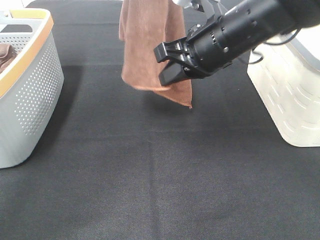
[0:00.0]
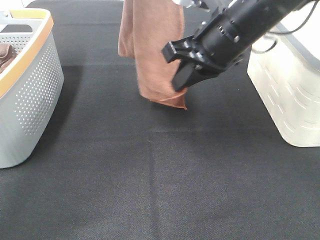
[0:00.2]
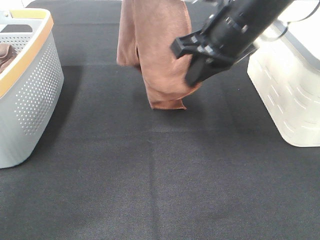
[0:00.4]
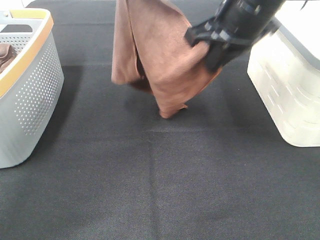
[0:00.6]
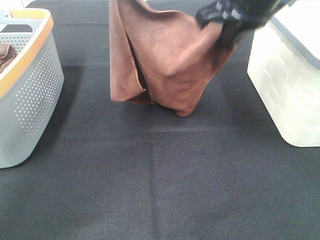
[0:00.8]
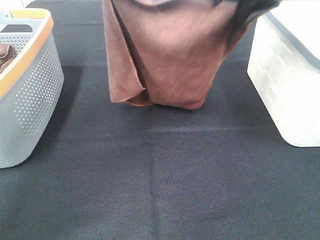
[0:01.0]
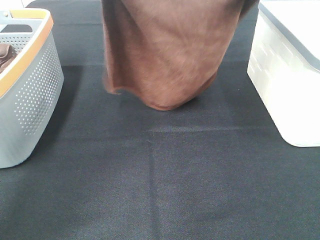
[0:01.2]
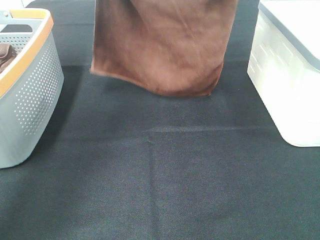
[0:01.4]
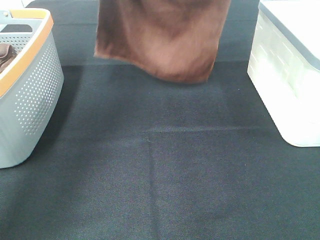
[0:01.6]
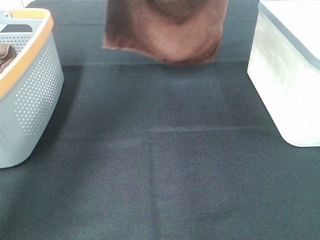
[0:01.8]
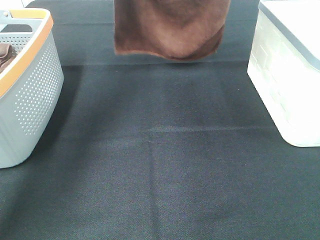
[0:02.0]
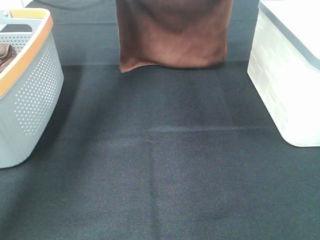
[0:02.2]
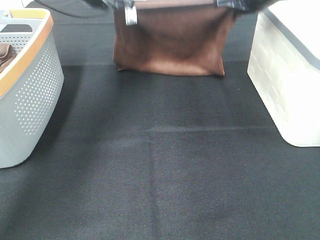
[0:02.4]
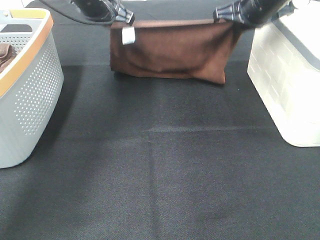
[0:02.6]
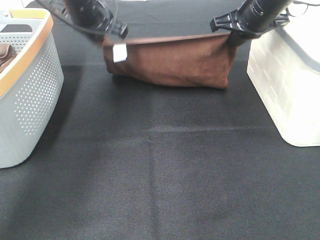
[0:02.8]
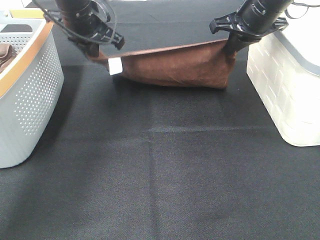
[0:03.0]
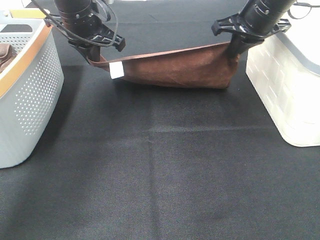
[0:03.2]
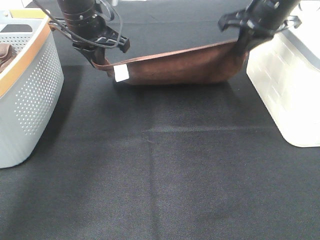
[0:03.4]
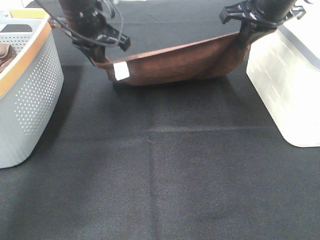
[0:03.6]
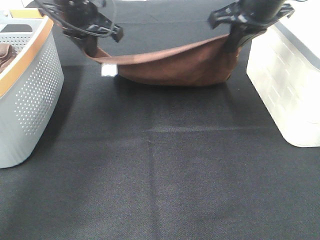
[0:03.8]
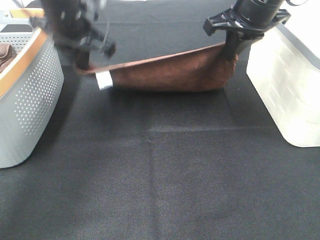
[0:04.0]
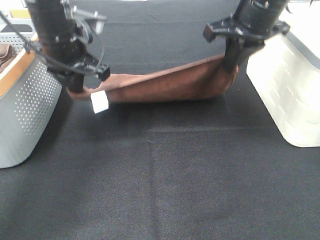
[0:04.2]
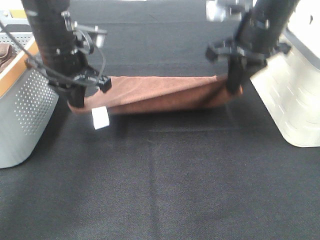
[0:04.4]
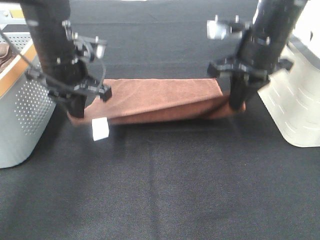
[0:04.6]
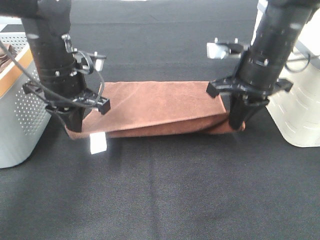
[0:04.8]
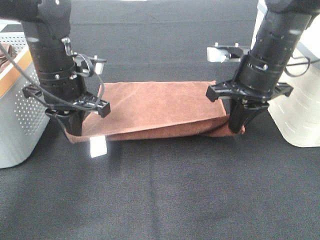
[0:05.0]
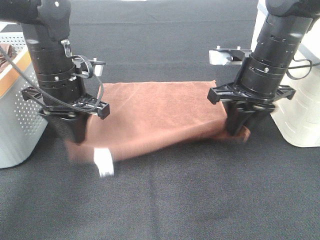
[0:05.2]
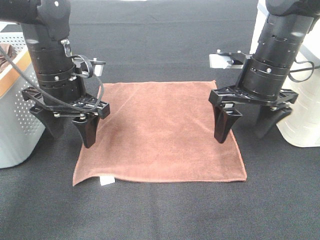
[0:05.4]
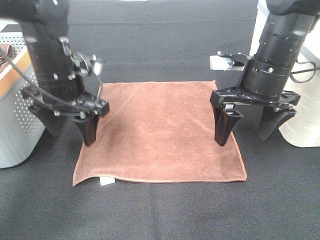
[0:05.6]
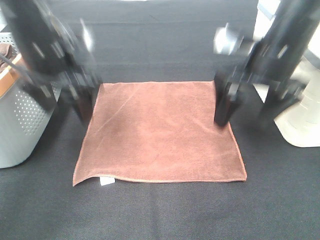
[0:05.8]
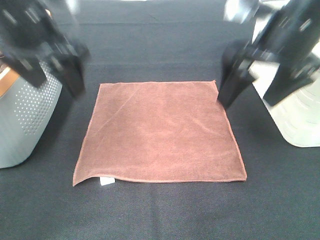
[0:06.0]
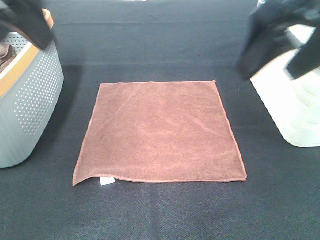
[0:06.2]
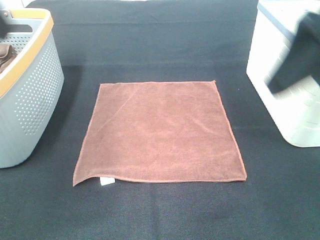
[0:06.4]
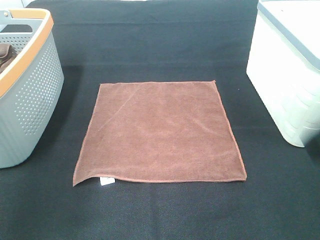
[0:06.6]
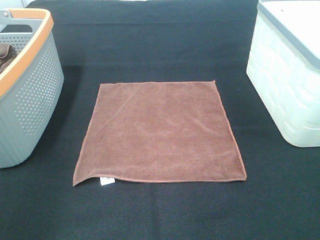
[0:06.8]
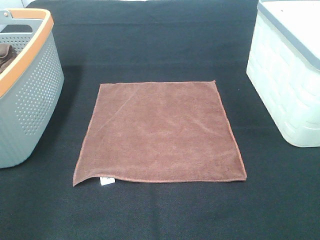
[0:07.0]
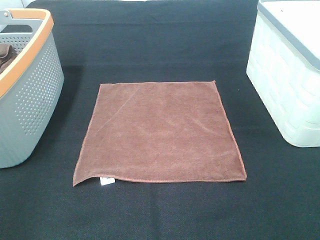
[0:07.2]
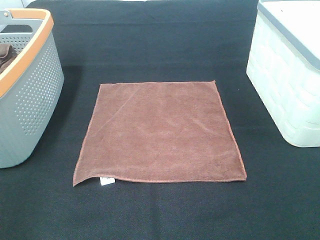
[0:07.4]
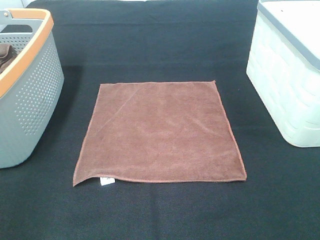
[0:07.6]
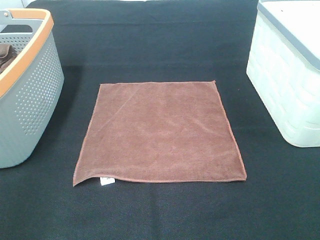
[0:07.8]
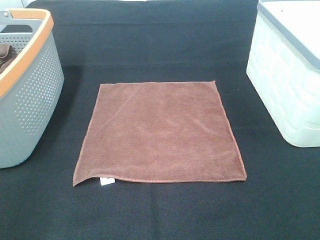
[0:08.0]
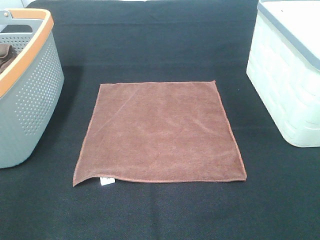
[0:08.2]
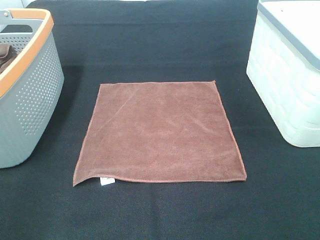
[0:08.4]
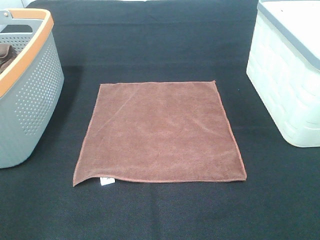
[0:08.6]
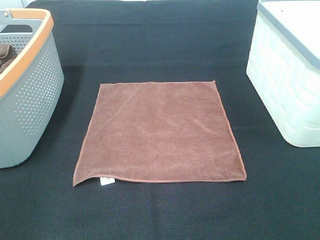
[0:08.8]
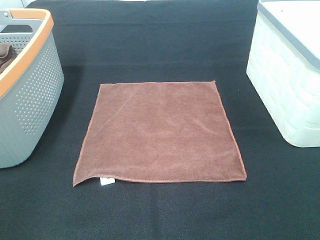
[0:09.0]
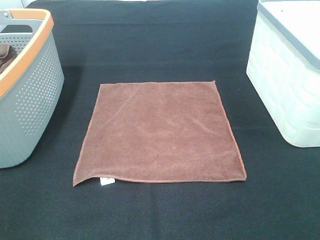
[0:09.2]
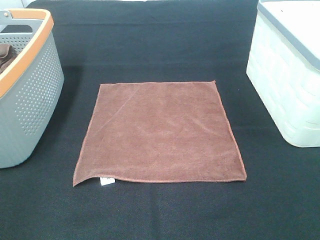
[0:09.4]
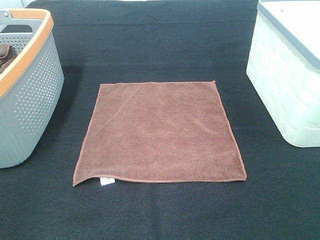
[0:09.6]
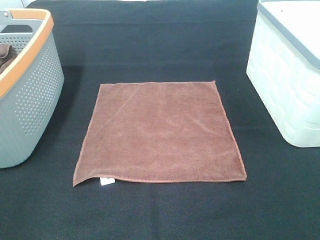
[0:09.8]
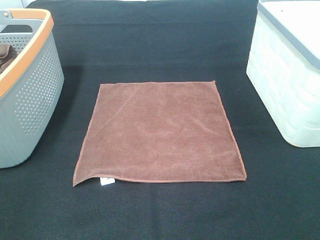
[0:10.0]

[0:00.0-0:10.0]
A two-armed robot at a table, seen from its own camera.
Task of the whole recording: Remove the towel and place it.
0:00.0 to 0:01.4: The left gripper is displaced downward and forward by some 10 cm. Meanwhile the right gripper is displaced upward, forward and to the right by roughly 15 cm.
0:01.4 to 0:02.8: The grippers both shift downward by some 10 cm.
0:02.8 to 0:04.2: Both grippers travel together backward, approximately 5 cm.
0:04.2 to 0:05.8: The two grippers go about 5 cm backward. The left gripper opens; the right gripper moves roughly 10 cm downward and comes back, and opens.
0:05.8 to 0:07.2: The right gripper heads backward, covering some 30 cm. The left gripper is displaced backward and to the left by about 35 cm.

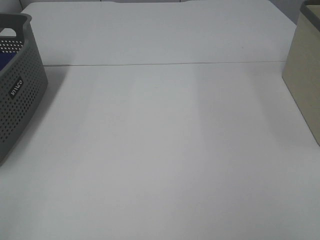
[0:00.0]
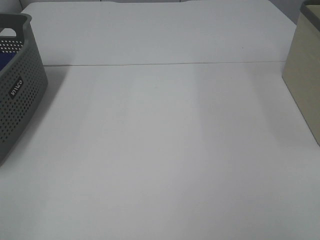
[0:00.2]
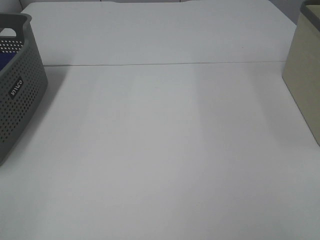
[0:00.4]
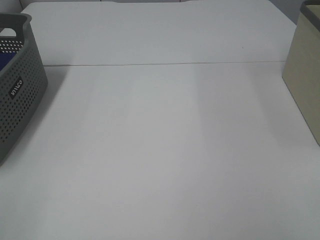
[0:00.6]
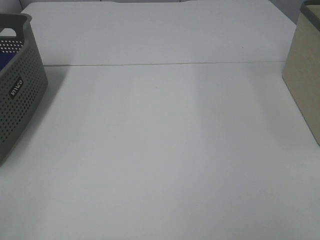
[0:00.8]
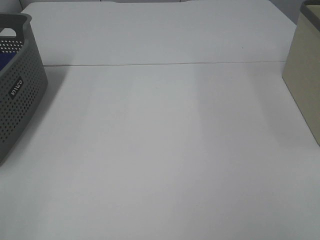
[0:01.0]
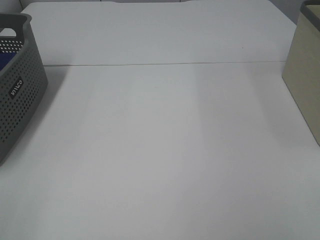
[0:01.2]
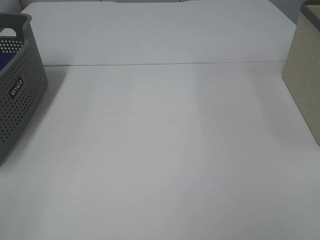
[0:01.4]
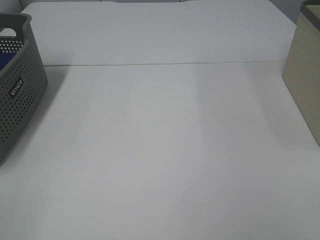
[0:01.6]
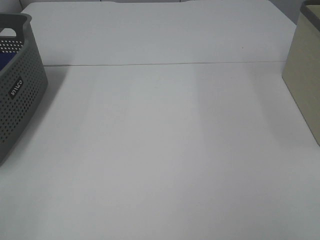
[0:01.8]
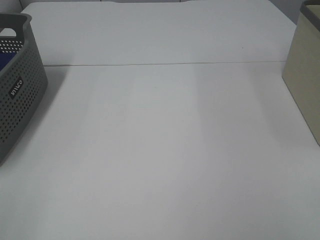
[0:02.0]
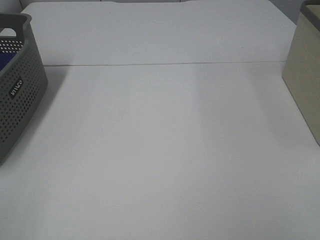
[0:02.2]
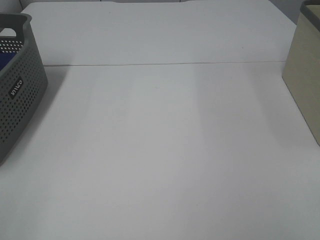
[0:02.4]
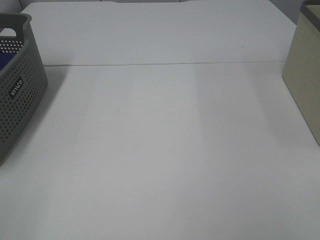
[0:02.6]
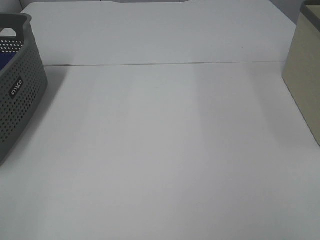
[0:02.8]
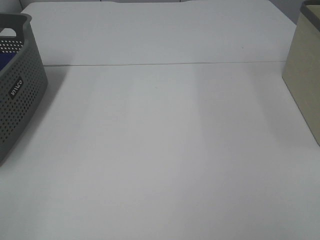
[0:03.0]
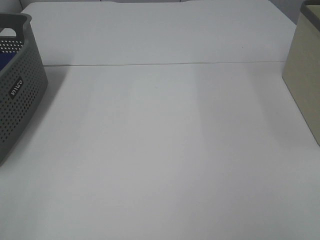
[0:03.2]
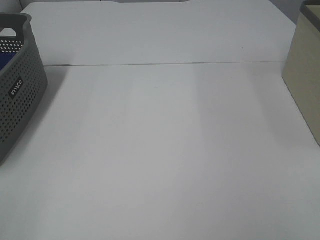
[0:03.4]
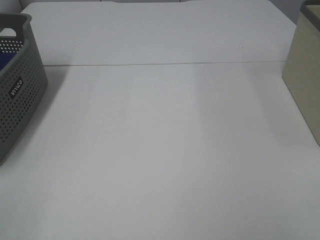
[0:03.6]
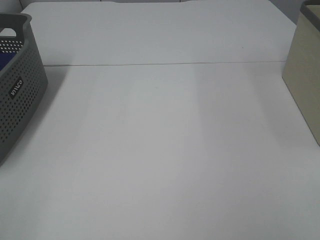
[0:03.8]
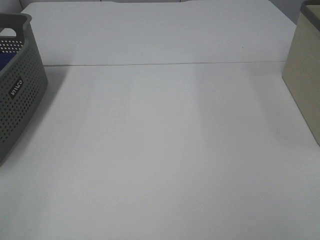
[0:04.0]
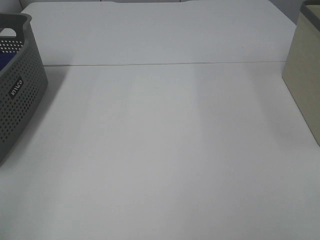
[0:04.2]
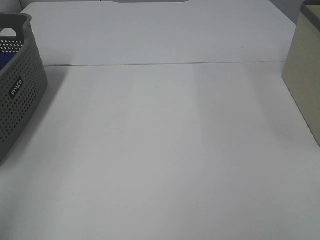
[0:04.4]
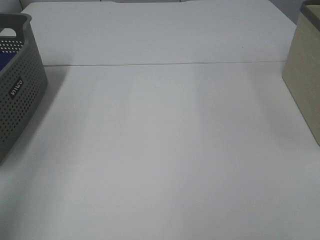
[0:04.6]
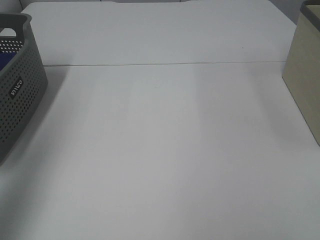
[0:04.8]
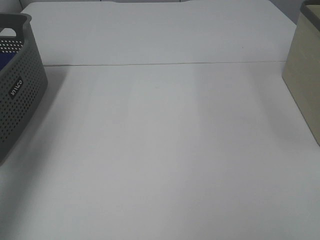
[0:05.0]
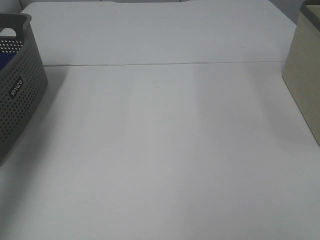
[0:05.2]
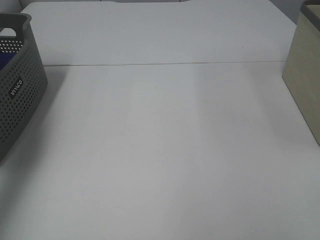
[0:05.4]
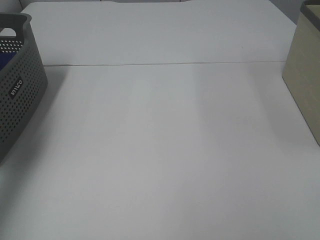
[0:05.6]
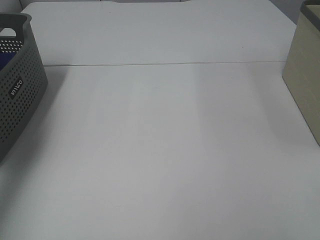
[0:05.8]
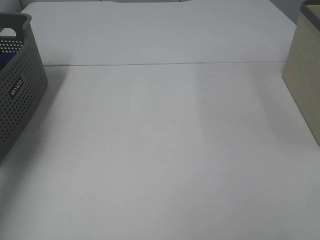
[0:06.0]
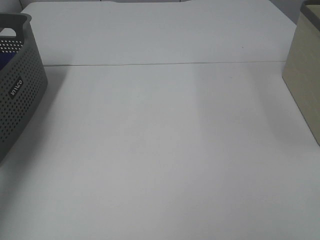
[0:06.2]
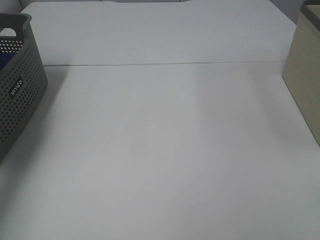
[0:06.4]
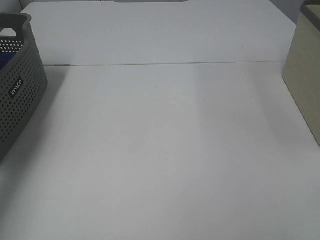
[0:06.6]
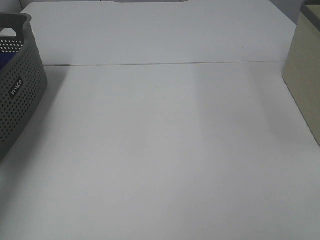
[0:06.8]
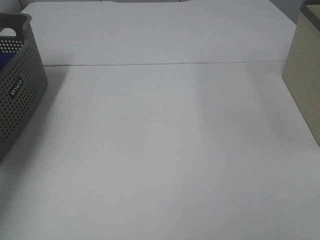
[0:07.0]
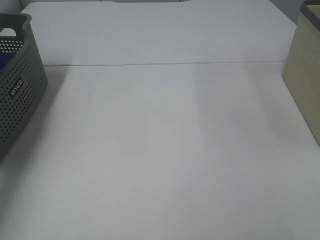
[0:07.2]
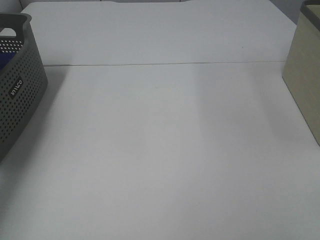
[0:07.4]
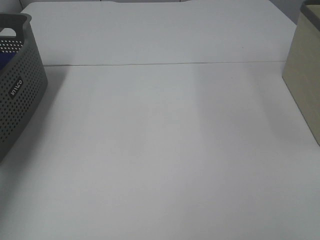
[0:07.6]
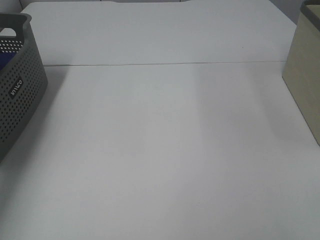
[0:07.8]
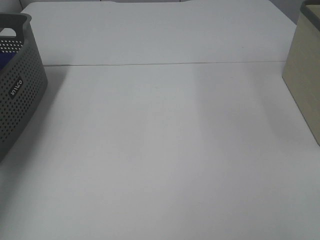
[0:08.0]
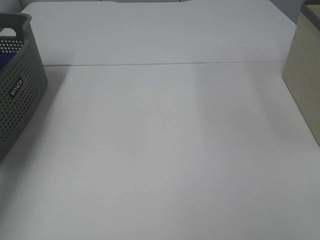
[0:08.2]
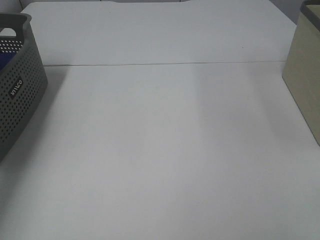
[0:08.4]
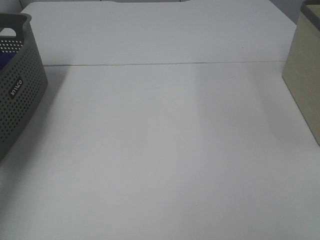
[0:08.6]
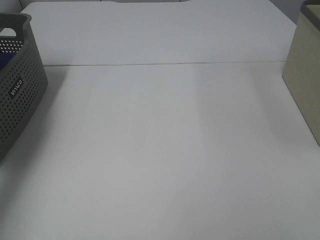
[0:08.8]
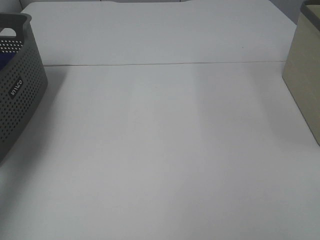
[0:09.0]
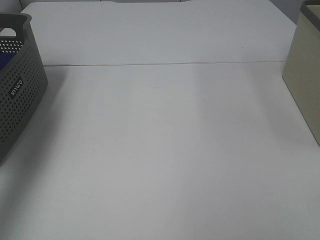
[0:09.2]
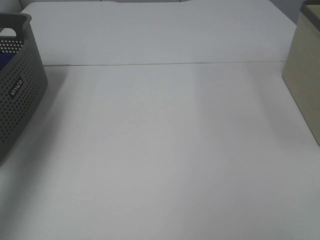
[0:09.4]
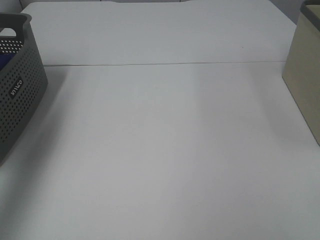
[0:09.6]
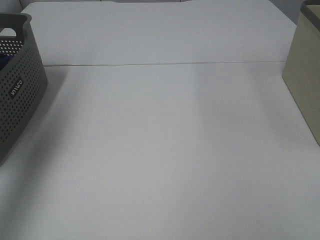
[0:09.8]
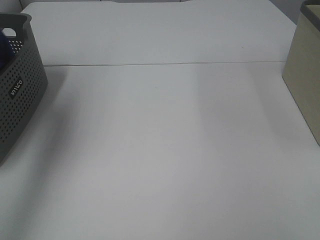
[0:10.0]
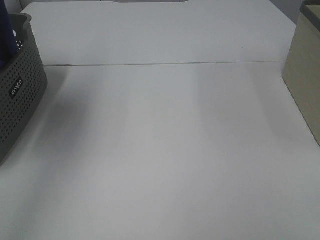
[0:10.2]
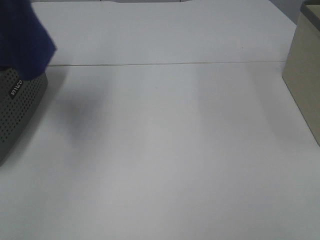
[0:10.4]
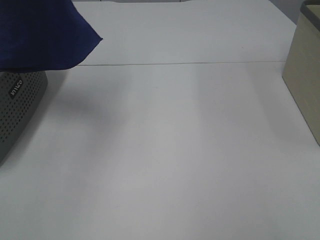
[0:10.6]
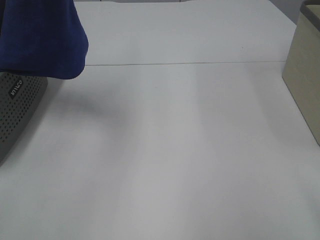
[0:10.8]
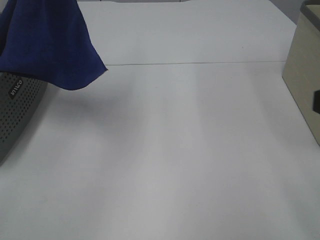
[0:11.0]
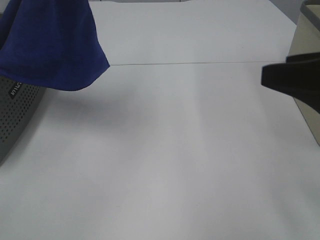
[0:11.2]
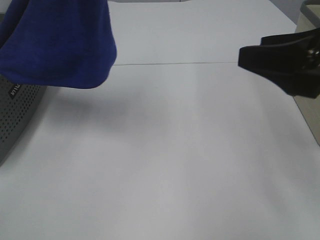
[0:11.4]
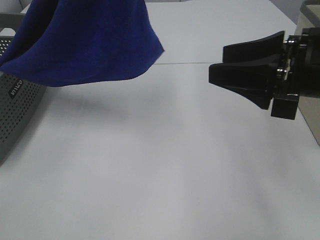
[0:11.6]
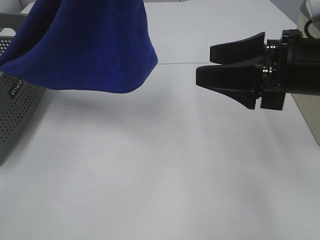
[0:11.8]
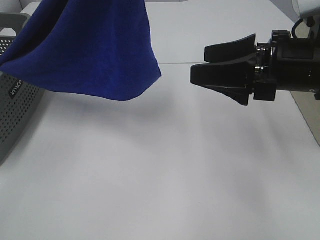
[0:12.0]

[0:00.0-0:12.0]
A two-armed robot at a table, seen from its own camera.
Task of the whole recording: Remove the towel and place it.
0:00.0 to 0:03.0: The two grippers keep their place.
0:04.4 to 0:06.0: The left gripper heads forward, covering some 30 cm.
0:09.0 to 0:10.4: The left gripper travels upward, to the right and backward by some 25 cm.
0:10.4 to 0:12.0: The left gripper shifts roughly 15 cm to the right. Meanwhile the right gripper moves forward, approximately 25 cm.
